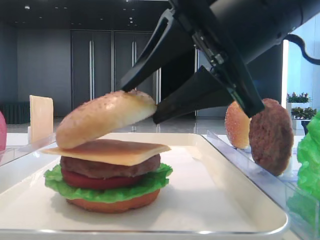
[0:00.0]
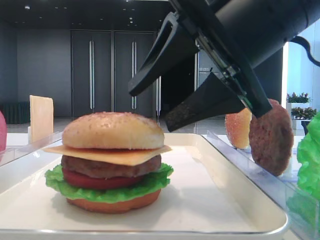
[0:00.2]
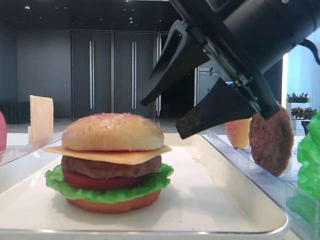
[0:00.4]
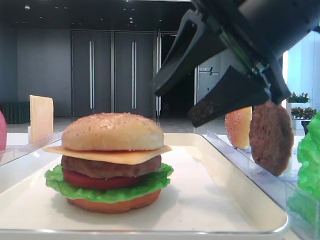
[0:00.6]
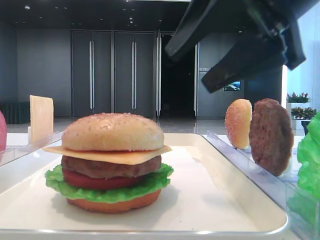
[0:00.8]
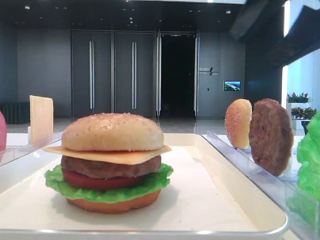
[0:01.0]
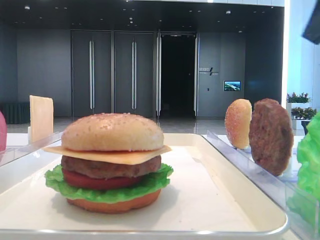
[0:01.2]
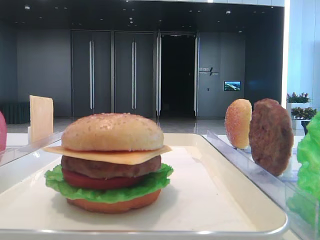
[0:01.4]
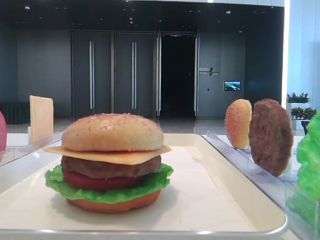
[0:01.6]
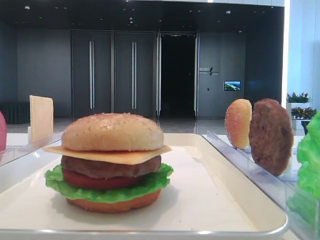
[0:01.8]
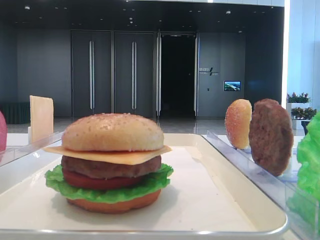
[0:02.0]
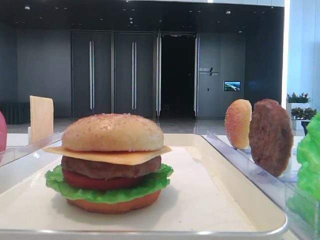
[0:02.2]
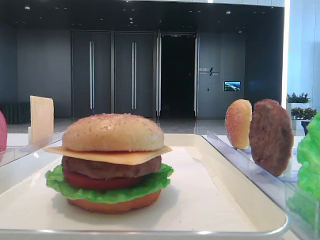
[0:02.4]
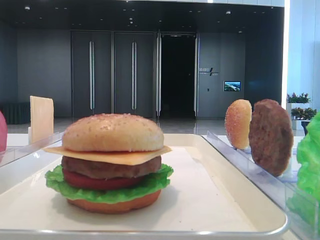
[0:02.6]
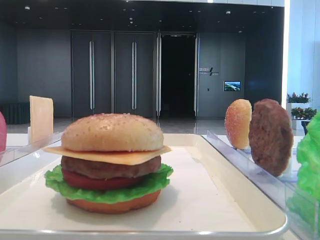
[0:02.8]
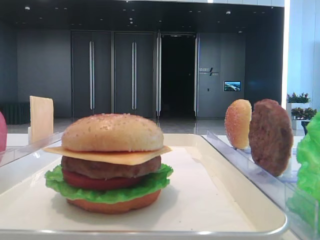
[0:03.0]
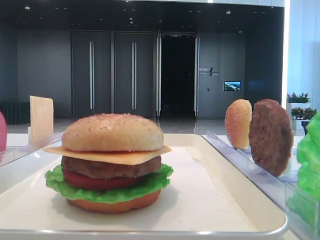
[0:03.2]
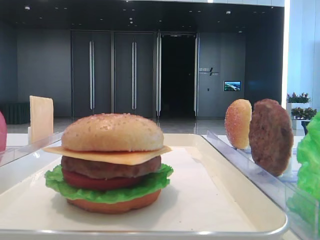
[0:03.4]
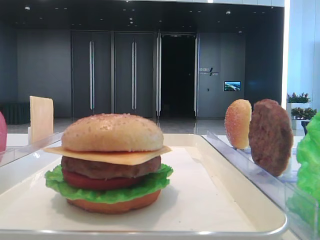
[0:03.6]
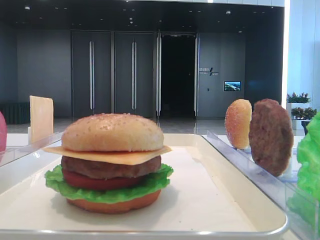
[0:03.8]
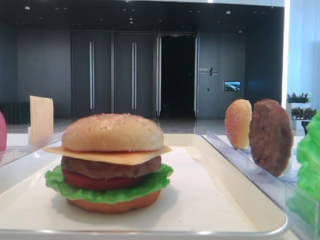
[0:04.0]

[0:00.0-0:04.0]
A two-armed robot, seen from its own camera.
0:00.0 to 0:01.4: The right gripper goes approximately 20 cm to the right and upward.

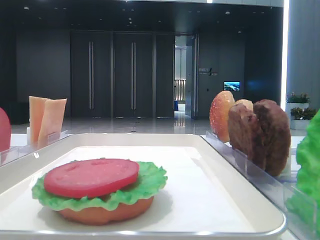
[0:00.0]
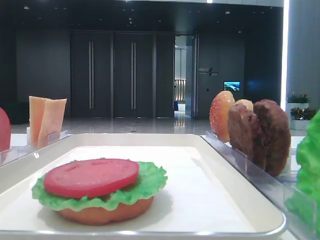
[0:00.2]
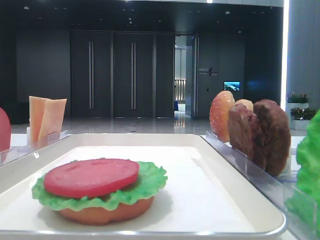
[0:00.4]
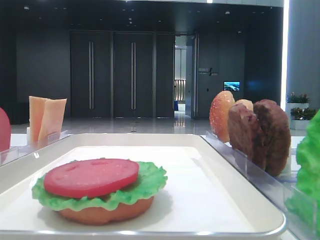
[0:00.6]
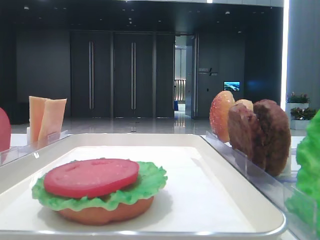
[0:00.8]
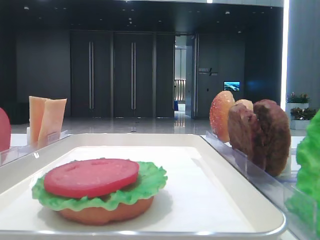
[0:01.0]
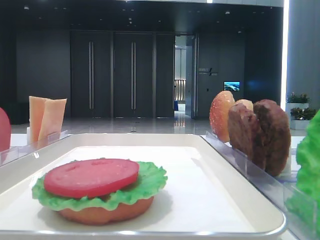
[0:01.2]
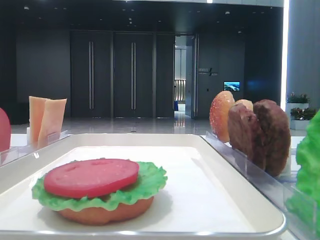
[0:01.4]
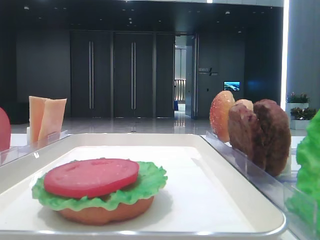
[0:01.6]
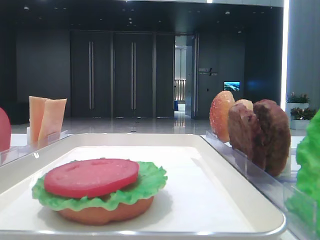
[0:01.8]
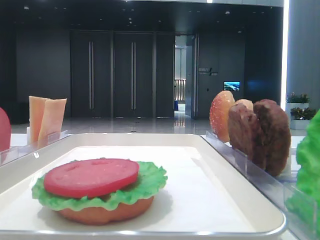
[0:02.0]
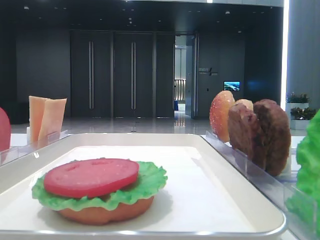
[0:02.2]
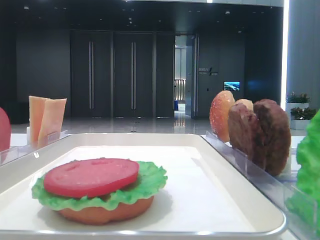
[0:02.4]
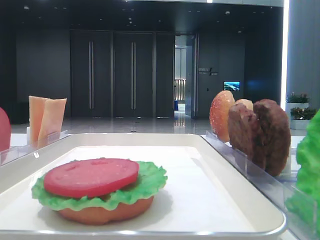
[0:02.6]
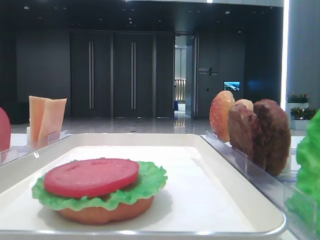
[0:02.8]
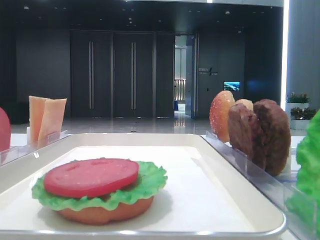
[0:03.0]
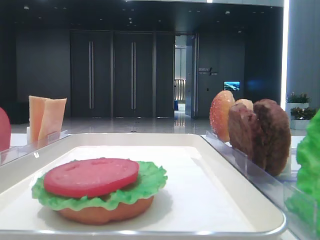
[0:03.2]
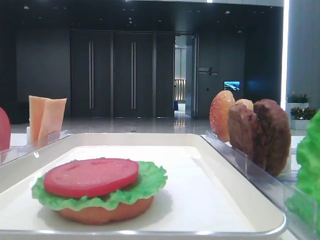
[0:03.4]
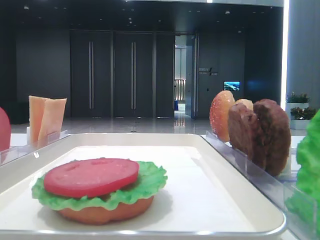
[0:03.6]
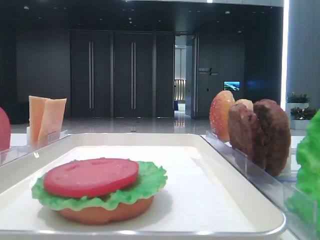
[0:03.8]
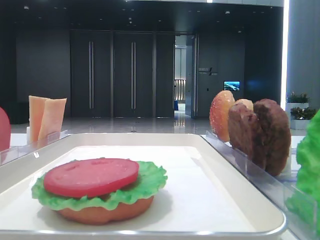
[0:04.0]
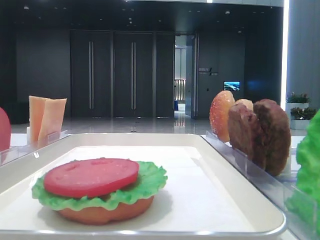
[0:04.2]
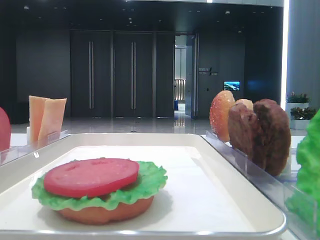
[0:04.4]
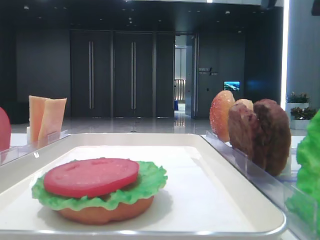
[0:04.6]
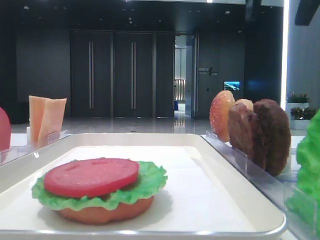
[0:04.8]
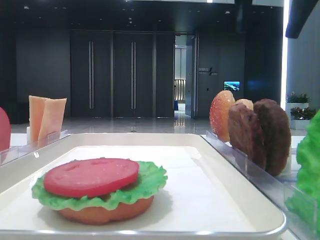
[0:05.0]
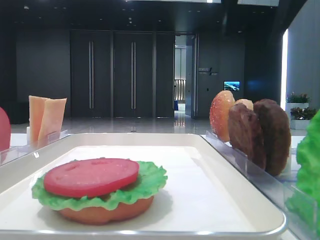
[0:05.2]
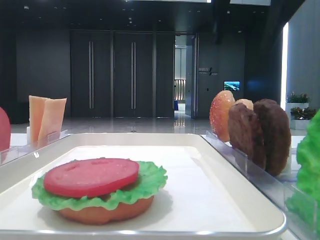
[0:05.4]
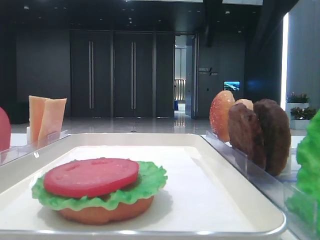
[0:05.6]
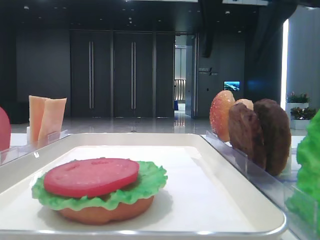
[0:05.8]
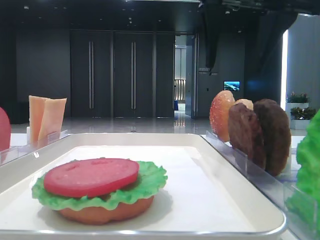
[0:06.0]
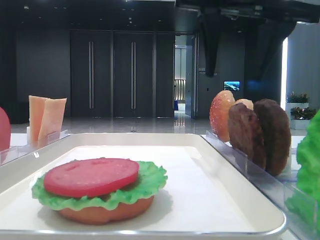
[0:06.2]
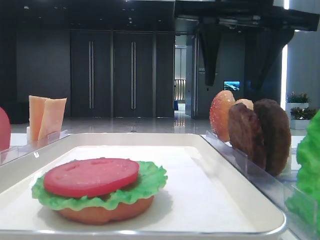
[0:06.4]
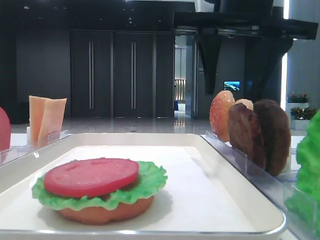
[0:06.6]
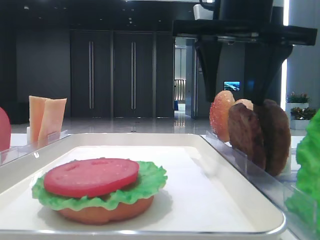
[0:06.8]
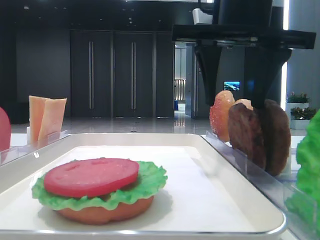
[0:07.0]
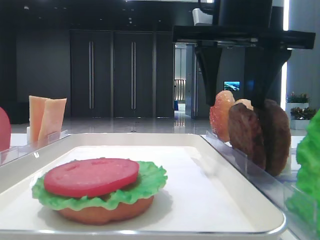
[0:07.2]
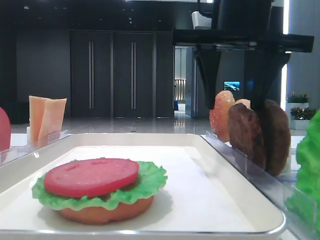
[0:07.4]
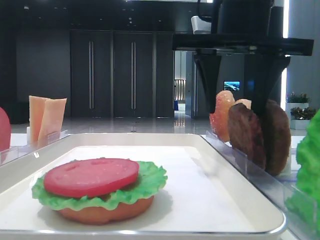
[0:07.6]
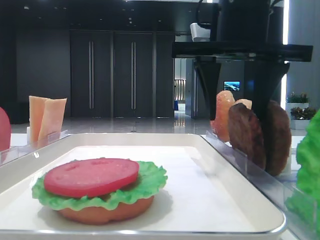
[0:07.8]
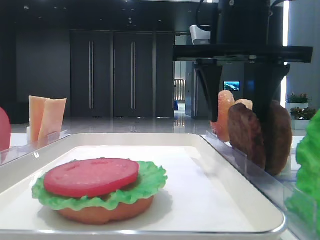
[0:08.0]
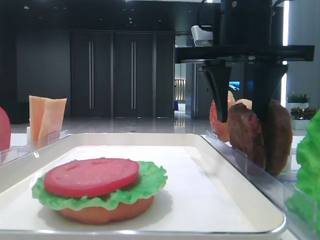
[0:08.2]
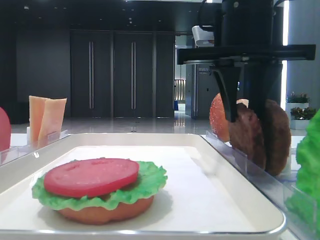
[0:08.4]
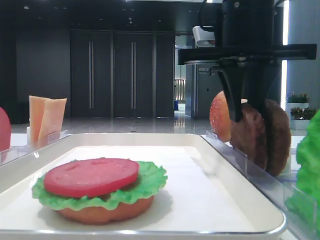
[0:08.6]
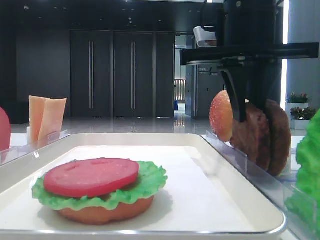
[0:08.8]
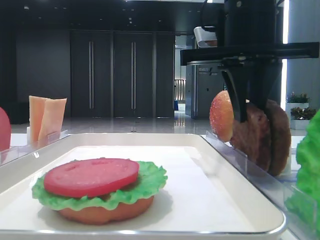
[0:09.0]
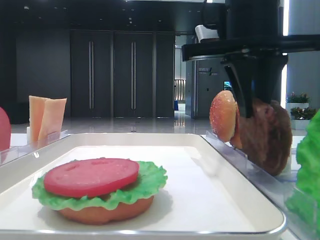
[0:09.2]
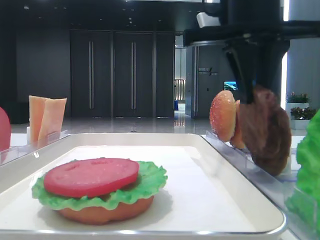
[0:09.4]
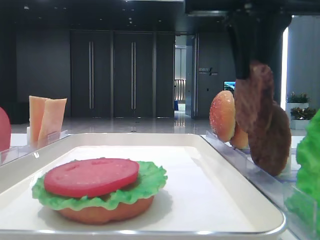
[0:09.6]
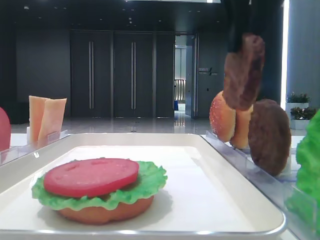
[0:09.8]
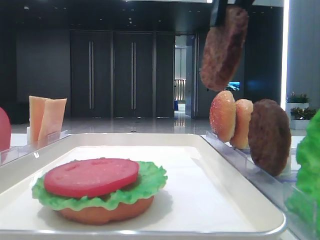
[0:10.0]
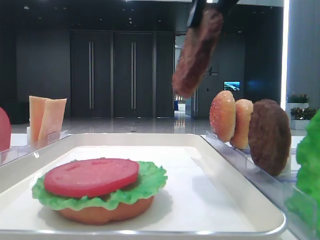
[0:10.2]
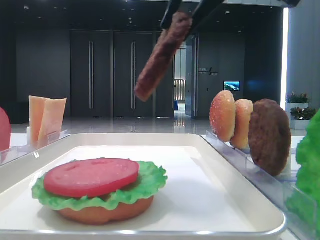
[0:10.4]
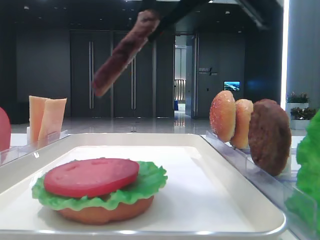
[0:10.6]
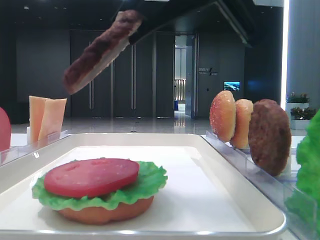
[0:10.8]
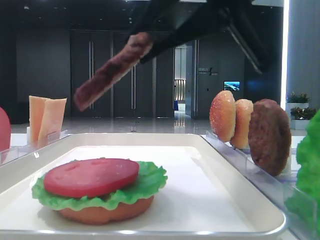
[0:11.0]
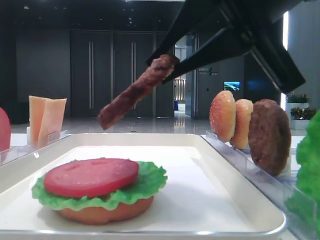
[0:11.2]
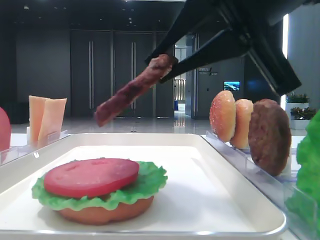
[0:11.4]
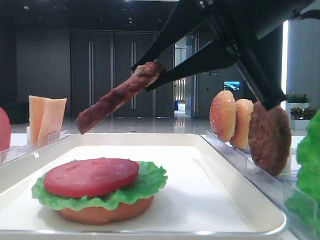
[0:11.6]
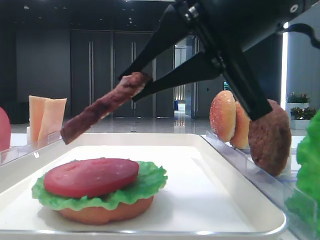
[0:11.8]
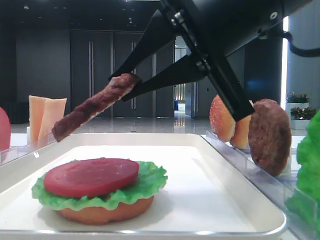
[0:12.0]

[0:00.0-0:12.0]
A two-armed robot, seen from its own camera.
Step, 0:00.0 to 0:09.4: Grab the patty with the right hand.
0:04.4 to 0:06.0: The right gripper is displaced to the left, downward and forward by roughly 10 cm.
0:06.0 to 0:07.6: The right gripper moves some 5 cm.
0:07.6 to 0:09.0: The right gripper closes its fingers.
0:09.0 to 0:10.4: The right gripper moves backward and upward, approximately 10 cm.
0:10.4 to 0:12.0: The right gripper is displaced downward by some 10 cm.

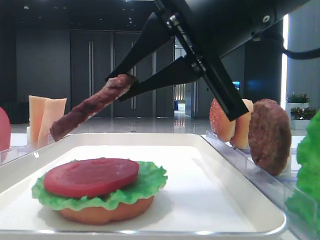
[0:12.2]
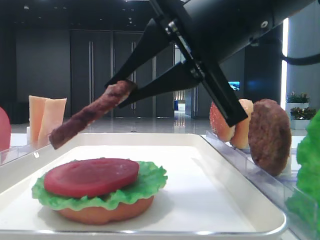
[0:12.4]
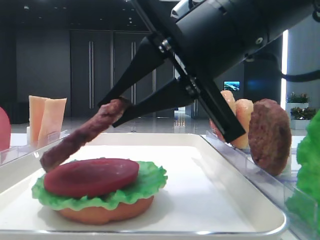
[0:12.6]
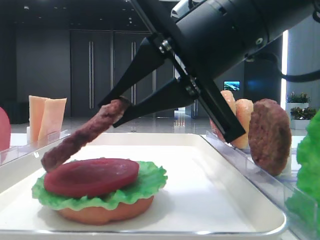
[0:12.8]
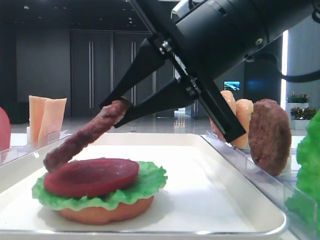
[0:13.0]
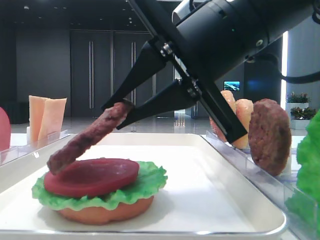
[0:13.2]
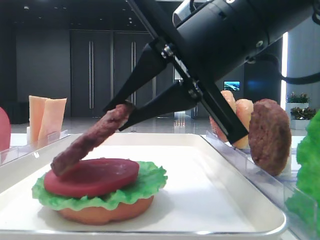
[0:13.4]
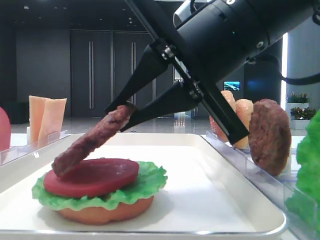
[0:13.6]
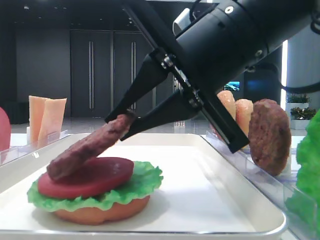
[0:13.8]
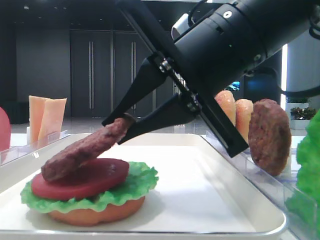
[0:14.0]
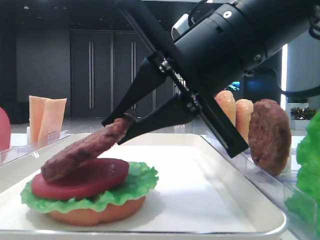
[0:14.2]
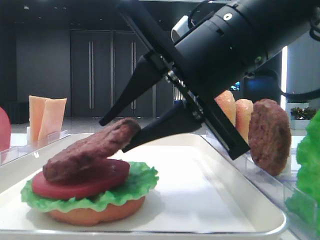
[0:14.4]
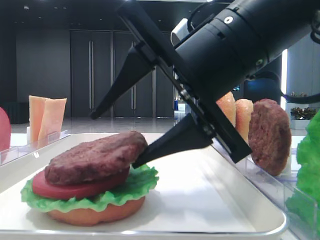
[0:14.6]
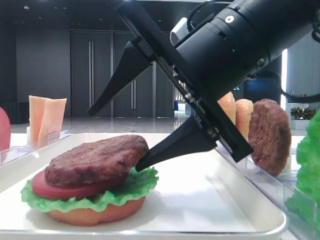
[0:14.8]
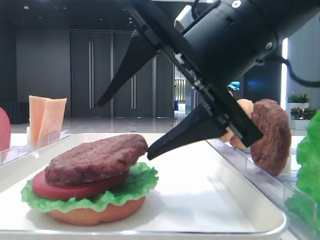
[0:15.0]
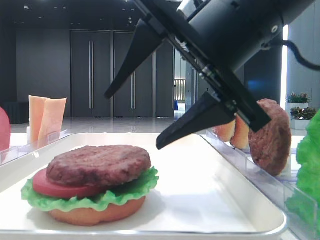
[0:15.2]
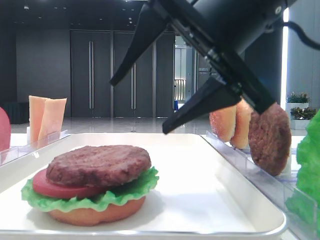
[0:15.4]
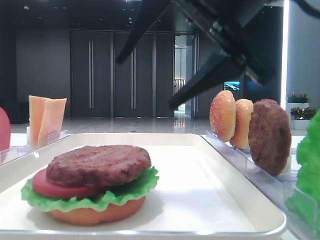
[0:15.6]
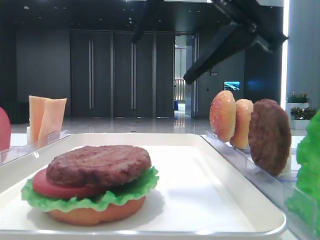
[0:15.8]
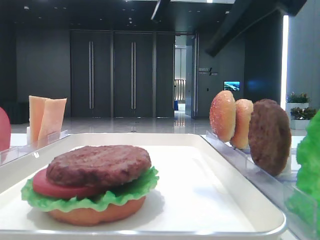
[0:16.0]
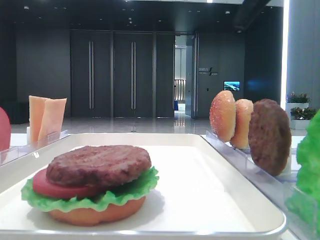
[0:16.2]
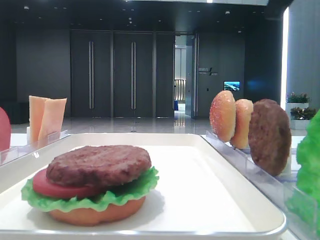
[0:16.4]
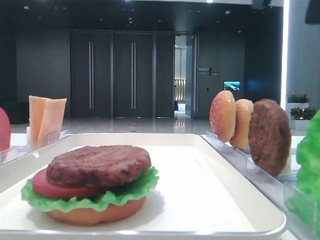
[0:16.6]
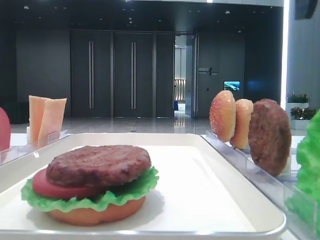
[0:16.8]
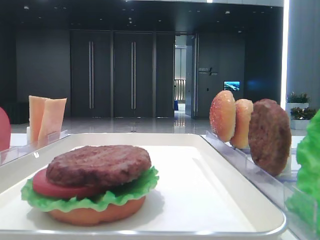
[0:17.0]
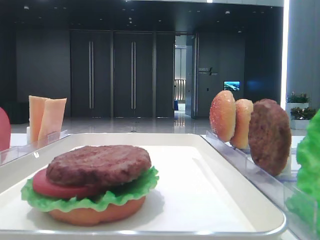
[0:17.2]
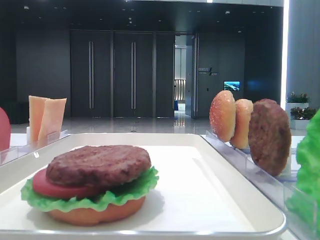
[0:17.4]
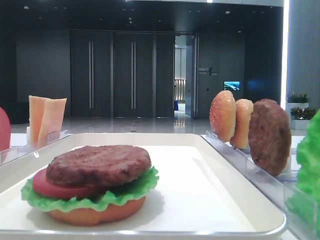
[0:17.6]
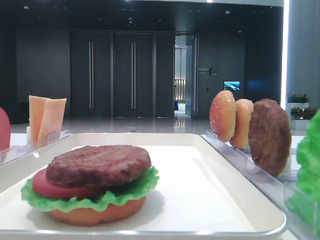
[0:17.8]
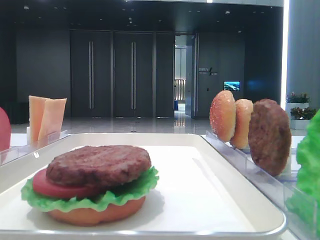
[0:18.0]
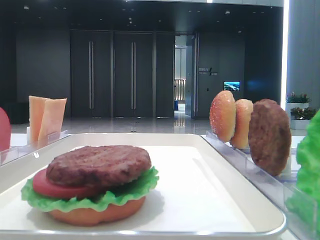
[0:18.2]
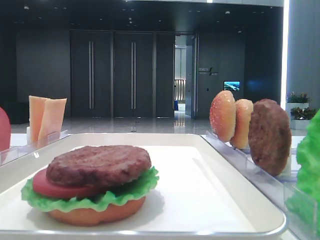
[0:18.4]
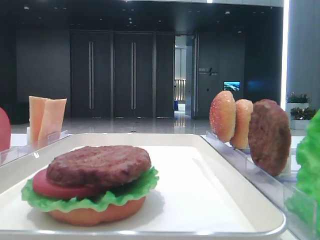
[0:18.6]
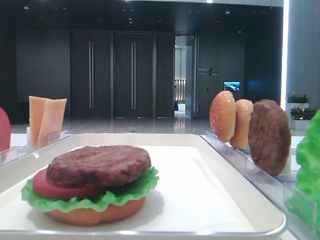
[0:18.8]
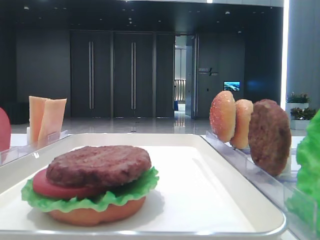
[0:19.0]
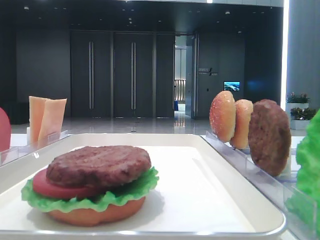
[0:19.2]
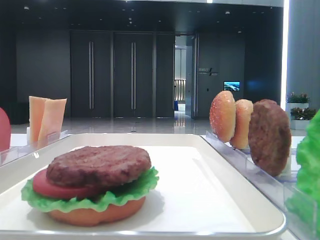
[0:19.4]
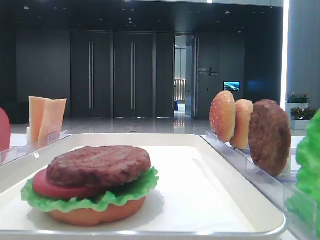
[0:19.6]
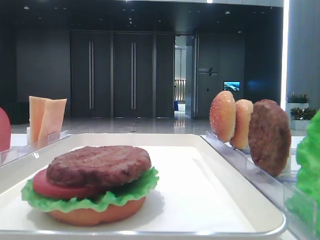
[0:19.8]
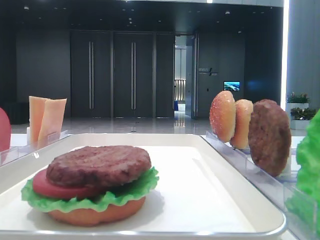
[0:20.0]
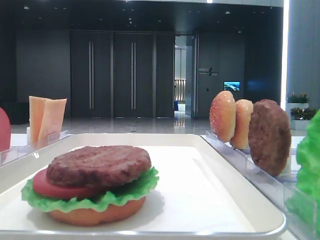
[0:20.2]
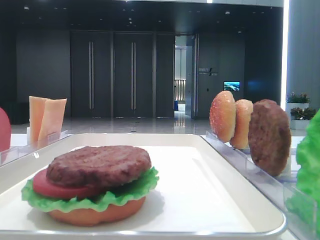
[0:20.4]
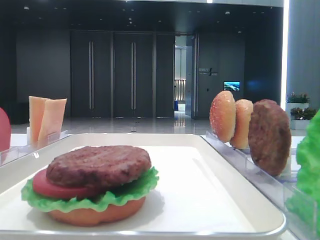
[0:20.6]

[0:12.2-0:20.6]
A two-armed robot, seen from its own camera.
Step, 0:12.2 to 0:15.0: Place the patty on the tomato slice with the right hand.
0:12.2 to 0:13.6: There are only small adjustments of the grippers.
0:13.6 to 0:15.0: The right gripper opens its fingers.
0:15.0 to 0:16.4: The right gripper travels upward by roughly 15 cm.
